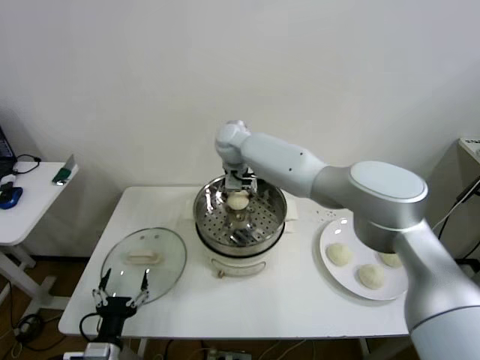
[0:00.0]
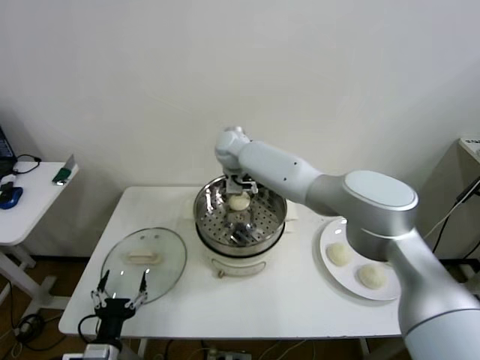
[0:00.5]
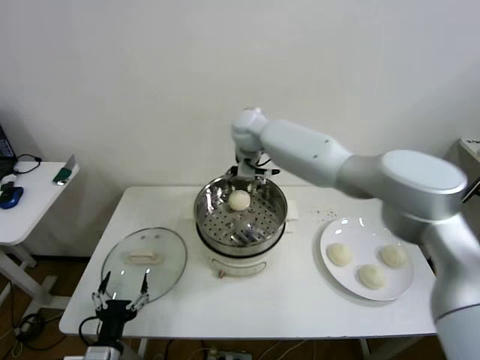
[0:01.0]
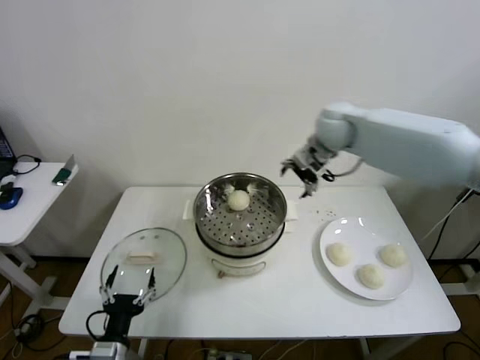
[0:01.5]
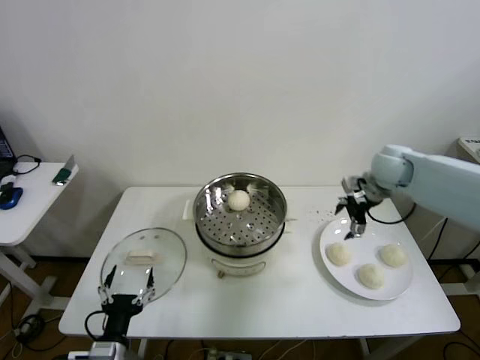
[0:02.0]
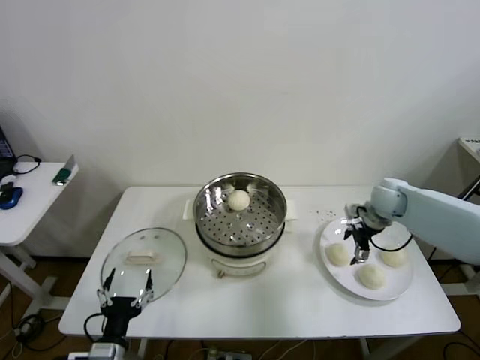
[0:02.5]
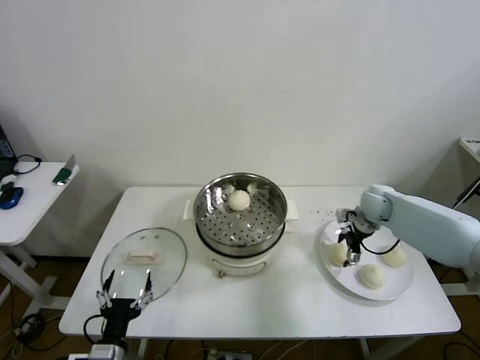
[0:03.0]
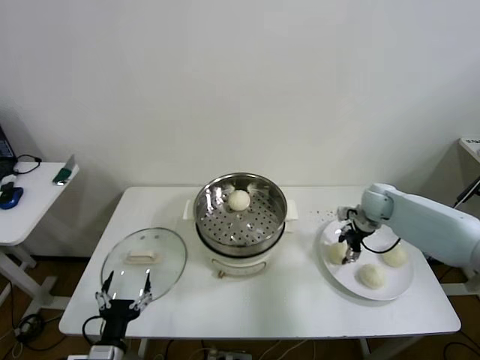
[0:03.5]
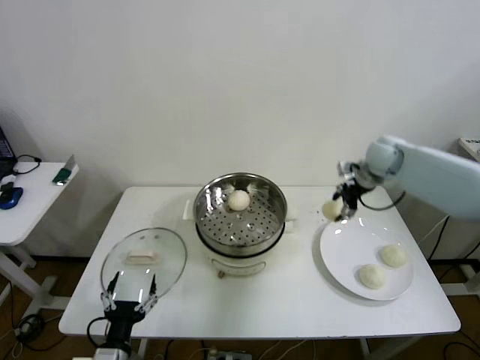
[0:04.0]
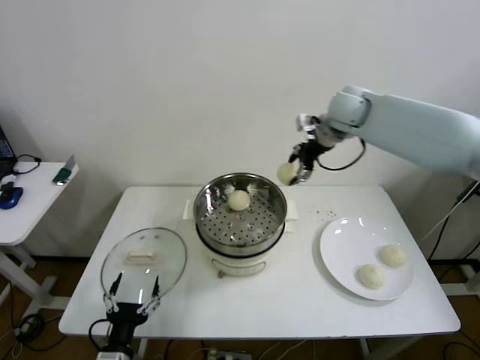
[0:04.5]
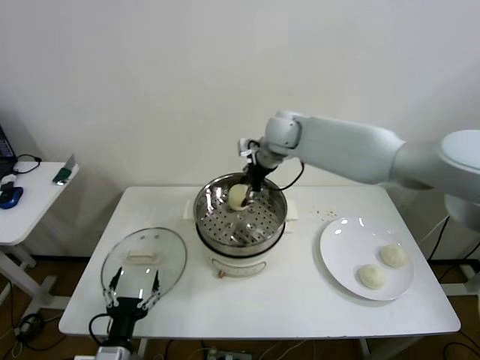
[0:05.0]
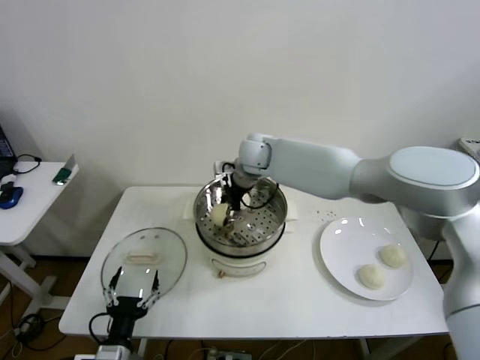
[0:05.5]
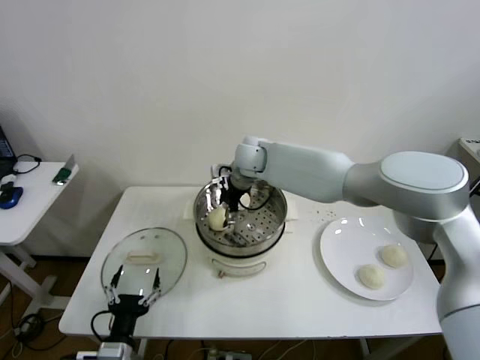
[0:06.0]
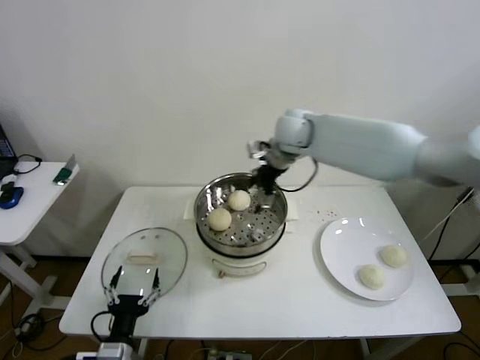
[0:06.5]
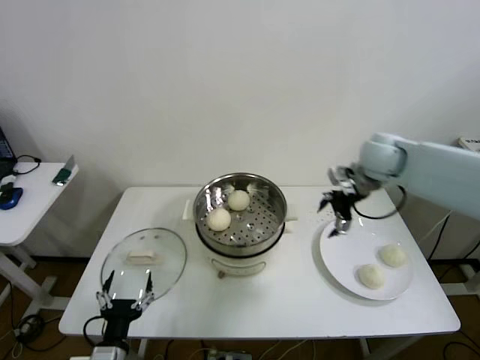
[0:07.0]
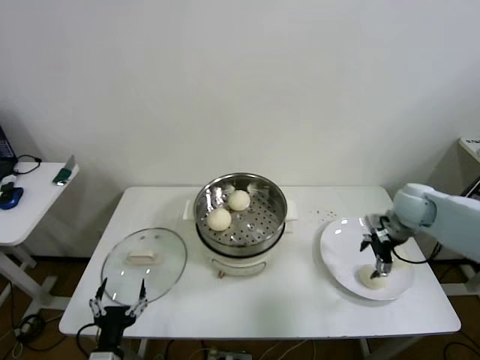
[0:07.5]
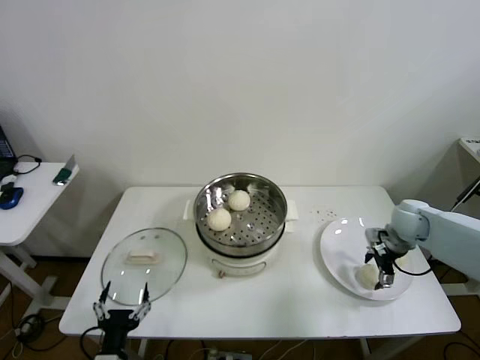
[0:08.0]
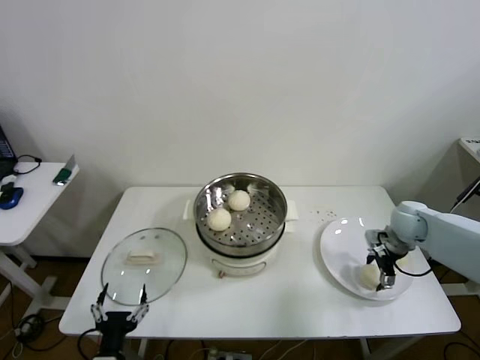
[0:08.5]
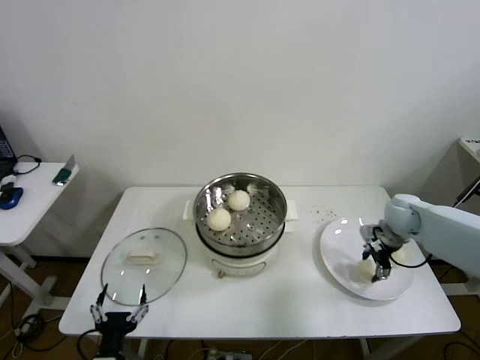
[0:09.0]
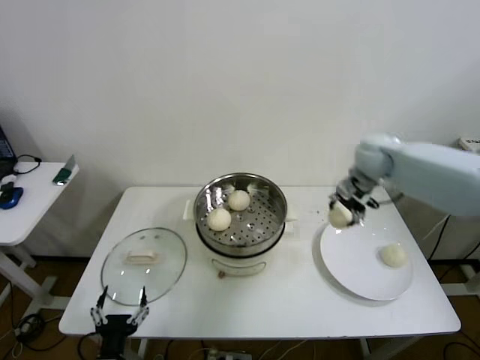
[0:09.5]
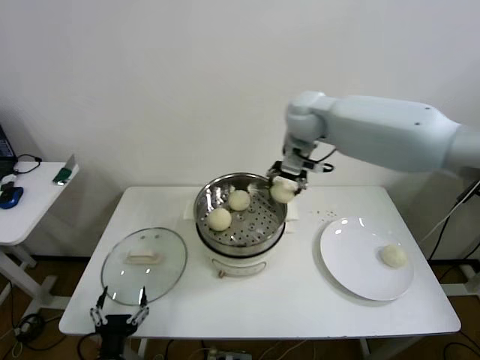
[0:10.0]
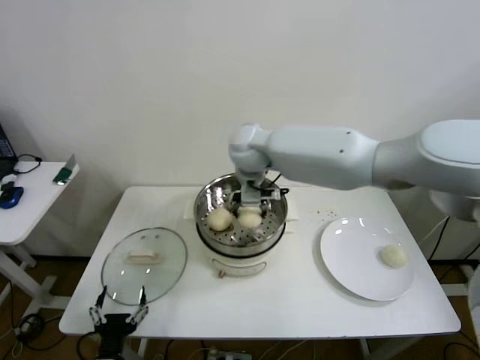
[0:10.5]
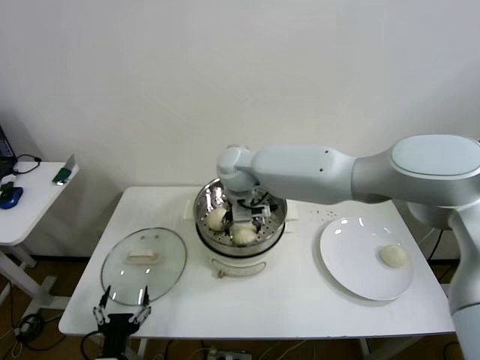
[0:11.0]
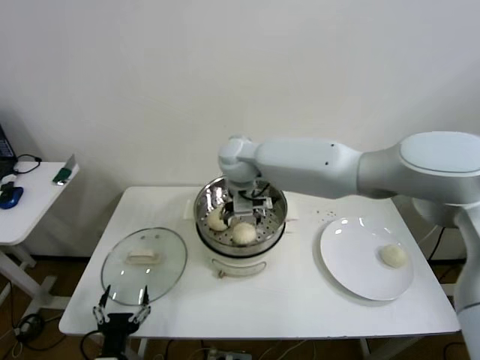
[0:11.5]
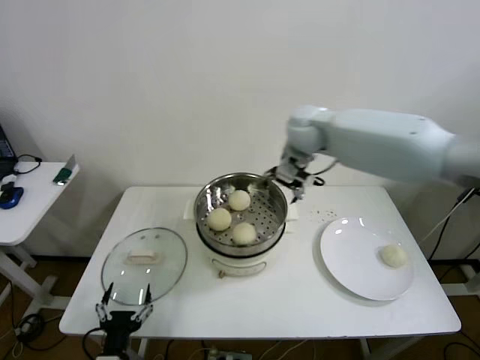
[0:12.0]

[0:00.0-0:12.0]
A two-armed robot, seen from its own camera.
Step, 0:01.5 to 0:03.5: Grasp the baozi in the plate with right gripper.
Step, 0:04.0 to 0:06.0: Place the baozi on the steamer with right gripper.
Step, 0:06.5 to 0:08.5: Grasp the baozi in the plate with right gripper.
Step, 0:09.0 to 0:11.5: Place the baozi on the steamer with right gripper.
0:00.0 to 0:02.0: The right gripper moves to the right, roughly 40 cm, and opens up.
0:02.0 to 0:04.0: The right gripper goes approximately 5 cm forward, reaches some 10 cm downward, then returns, and closes up.
0:04.0 to 0:06.0: The right gripper heads to the left, covering about 30 cm, and opens up.
0:06.0 to 0:08.0: The right gripper shifts roughly 40 cm to the right.
0:08.0 to 0:10.0: The right gripper moves to the left and upward, roughly 40 cm, and closes.
0:10.0 to 0:12.0: The right gripper travels to the left and back again, some 15 cm each way, and opens.

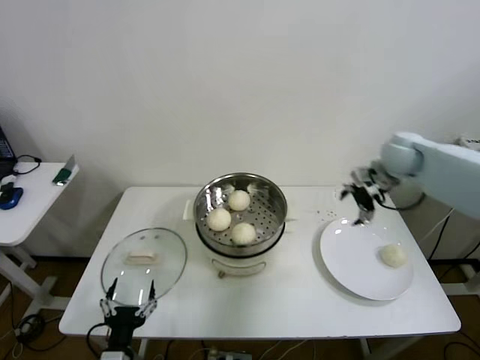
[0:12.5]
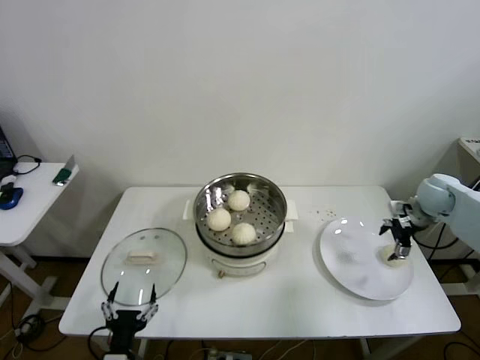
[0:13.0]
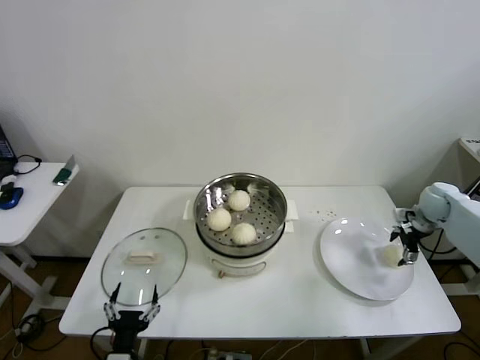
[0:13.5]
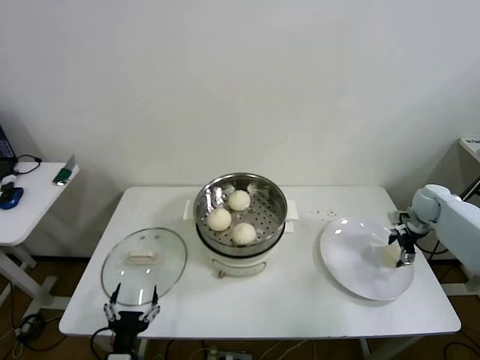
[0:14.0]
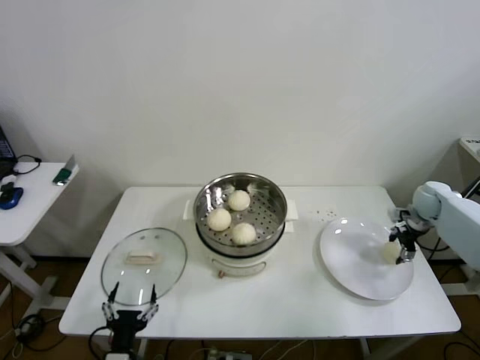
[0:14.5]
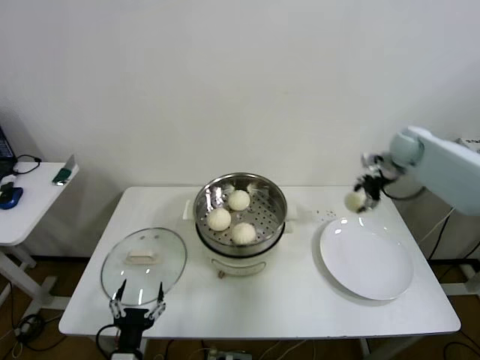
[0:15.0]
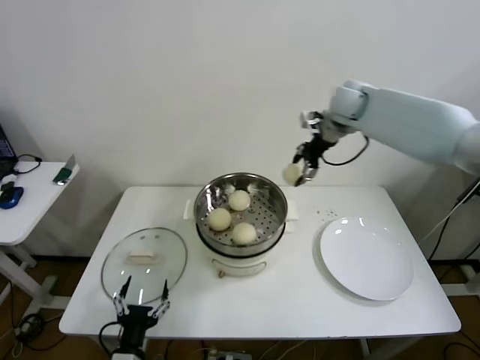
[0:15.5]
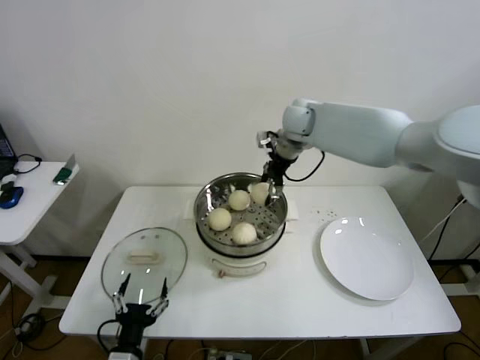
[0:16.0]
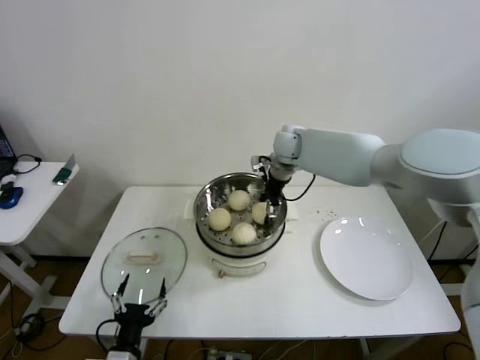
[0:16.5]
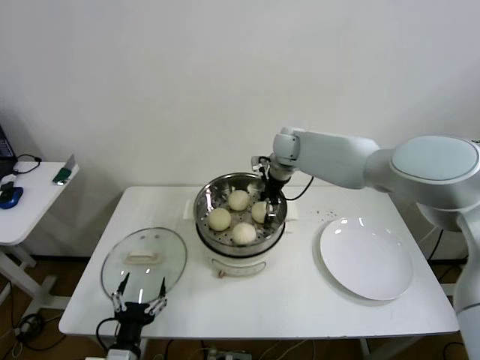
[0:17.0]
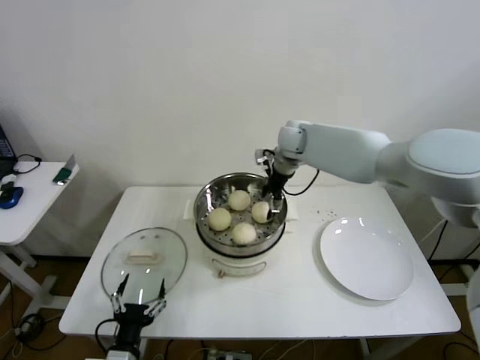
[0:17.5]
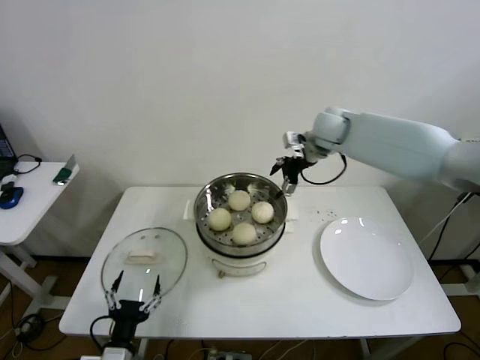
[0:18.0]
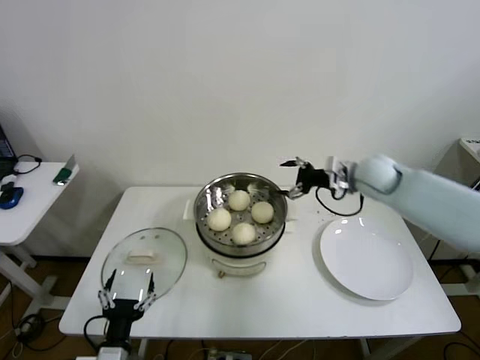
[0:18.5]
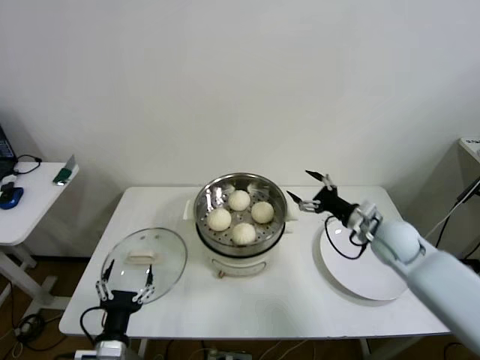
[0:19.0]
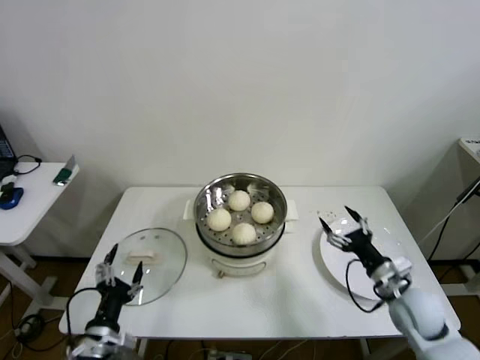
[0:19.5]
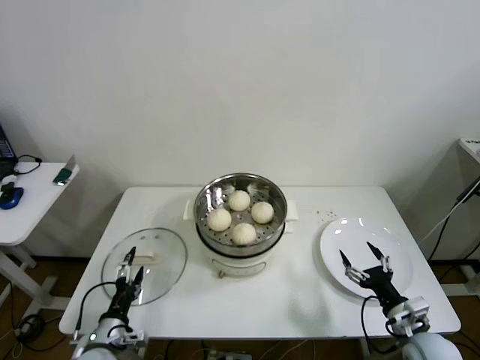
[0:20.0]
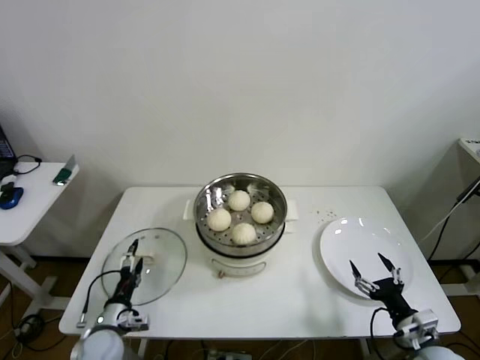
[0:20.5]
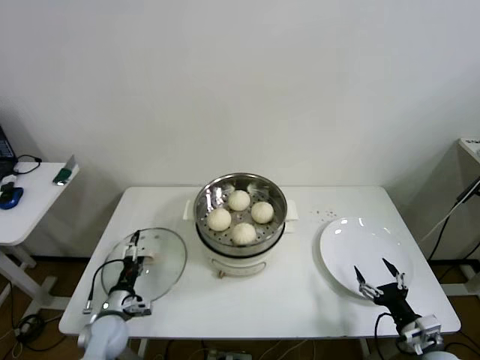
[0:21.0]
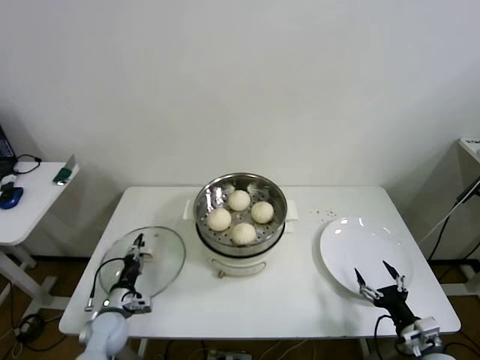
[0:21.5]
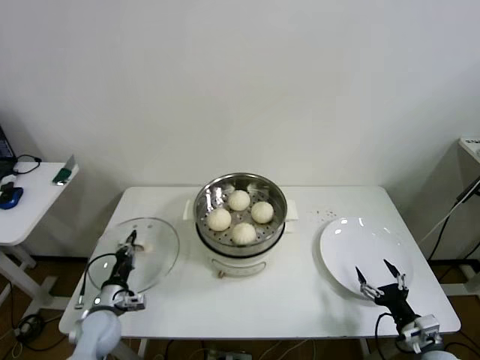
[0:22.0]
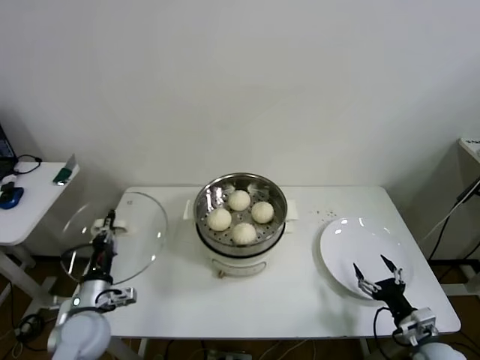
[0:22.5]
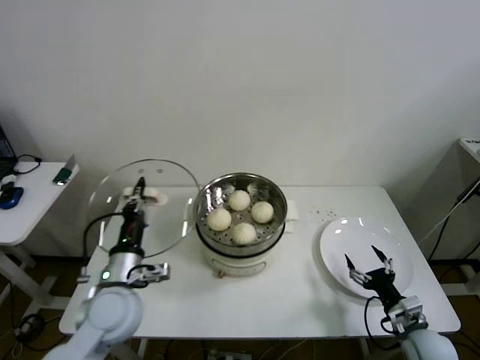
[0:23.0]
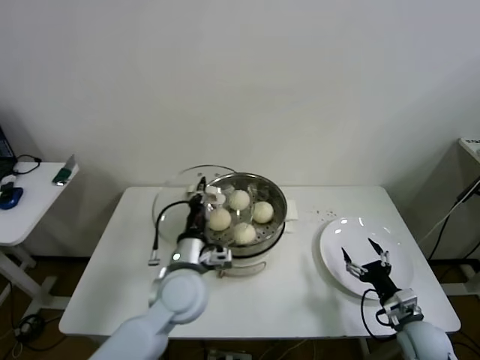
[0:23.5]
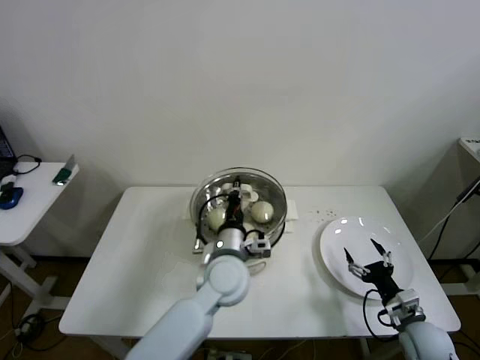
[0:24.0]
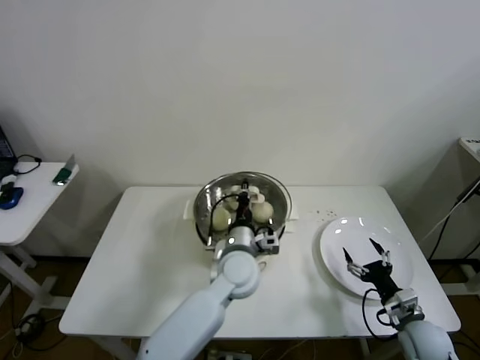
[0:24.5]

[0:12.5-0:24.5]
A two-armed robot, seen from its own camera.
Step, 0:12.5 to 0:14.5: Grasp the baozi in the plate with right gripper.
Step, 0:15.0 to 0:17.5: Place the baozi on the steamer with right gripper.
Step, 0:18.0 to 0:22.0: Grasp the pot lid with left gripper.
0:12.5 to 0:14.5: The right gripper travels downward and to the right by approximately 20 cm, and closes its fingers.
0:14.5 to 0:16.5: The right gripper travels to the left by about 40 cm.
0:16.5 to 0:18.5: The right gripper travels to the right and backward by roughly 20 cm, and opens.
0:18.5 to 0:20.5: The right gripper travels backward and downward by approximately 40 cm. The left gripper moves forward, to the left and downward, some 15 cm.
0:20.5 to 0:22.5: The left gripper goes approximately 10 cm upward, and closes.
0:22.5 to 0:24.5: The left gripper travels to the right by about 30 cm.

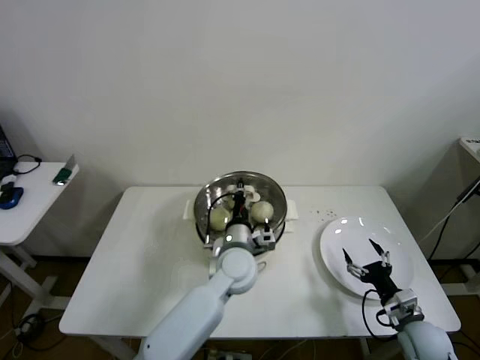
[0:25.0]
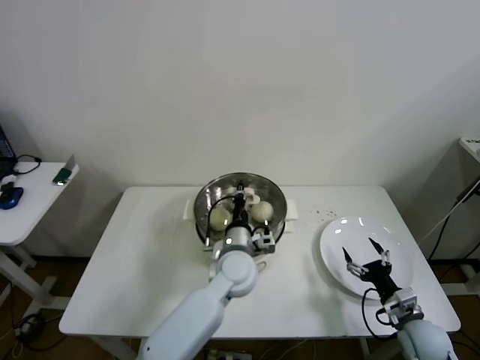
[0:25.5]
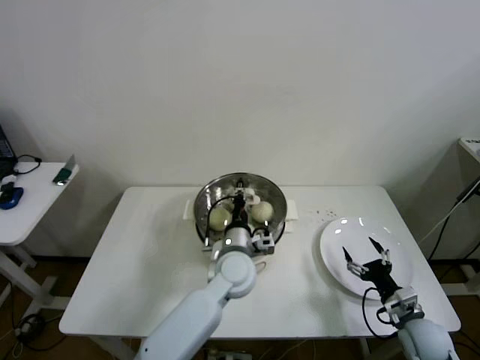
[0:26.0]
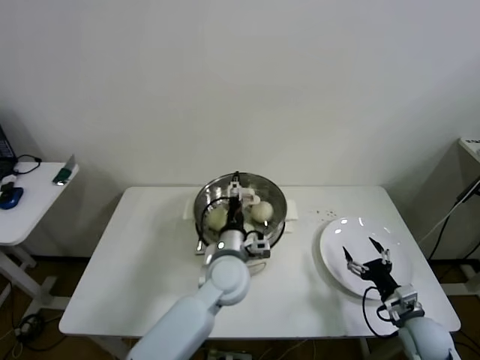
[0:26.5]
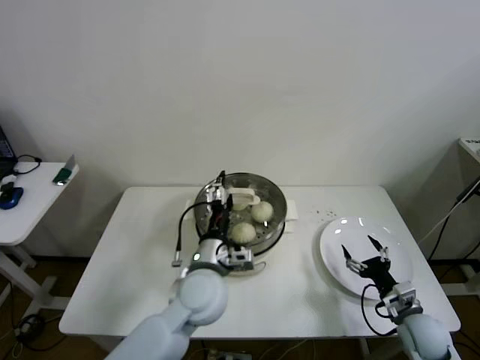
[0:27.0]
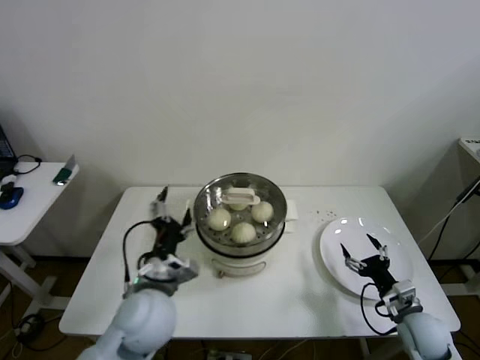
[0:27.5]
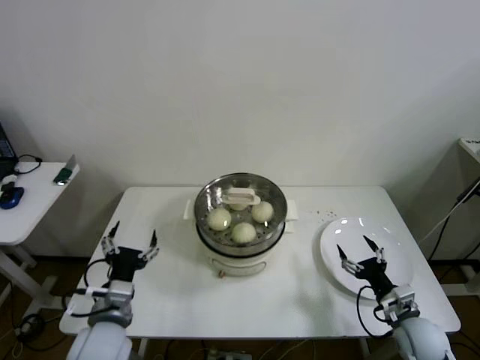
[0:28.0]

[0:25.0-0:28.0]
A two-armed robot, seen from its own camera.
Step, 0:25.0 to 0:27.0: Place the pot lid on the steamer with left gripper.
0:25.0 to 0:26.5: The left gripper opens its fingers.
0:26.5 to 0:28.0: The left gripper travels to the left and backward by approximately 25 cm.
